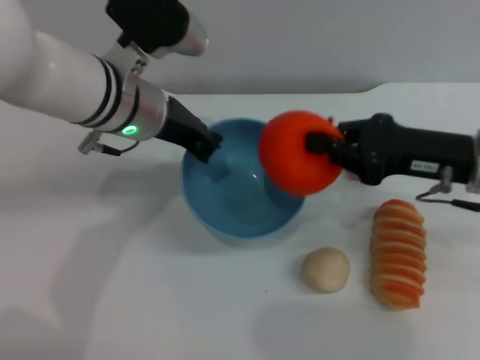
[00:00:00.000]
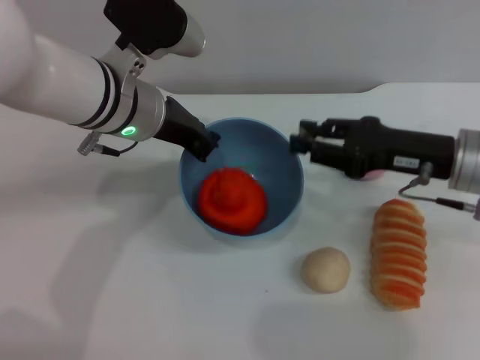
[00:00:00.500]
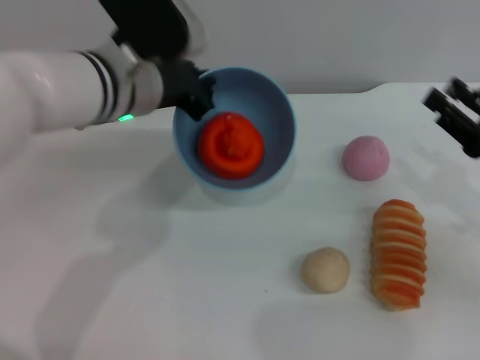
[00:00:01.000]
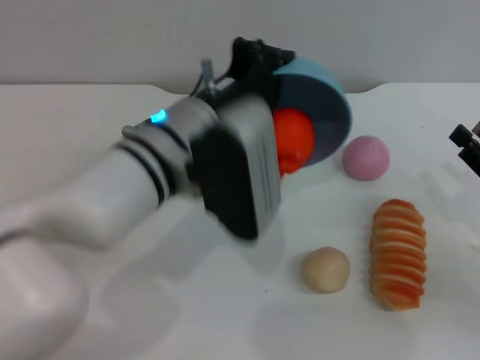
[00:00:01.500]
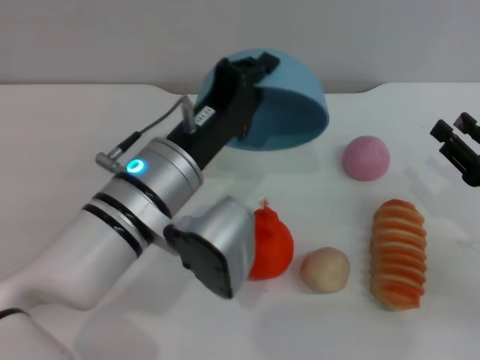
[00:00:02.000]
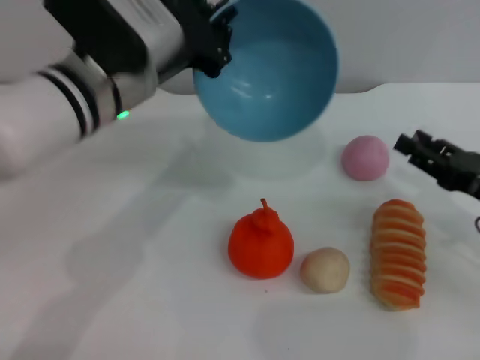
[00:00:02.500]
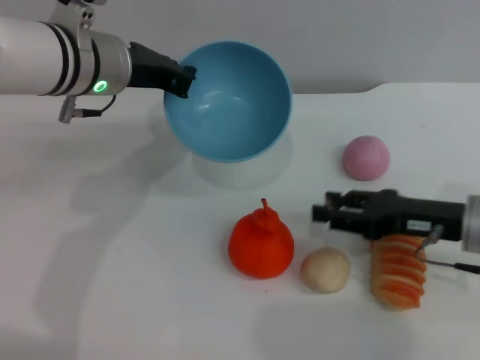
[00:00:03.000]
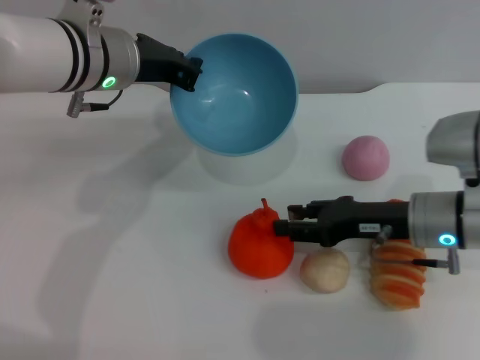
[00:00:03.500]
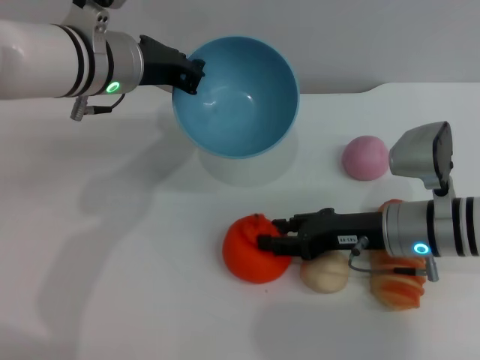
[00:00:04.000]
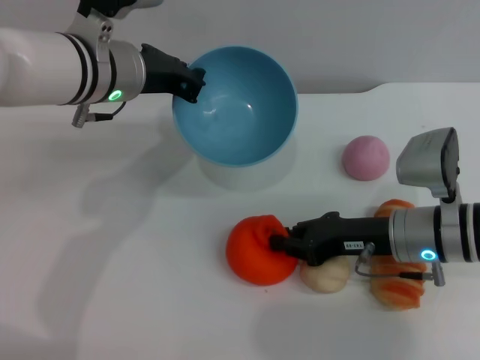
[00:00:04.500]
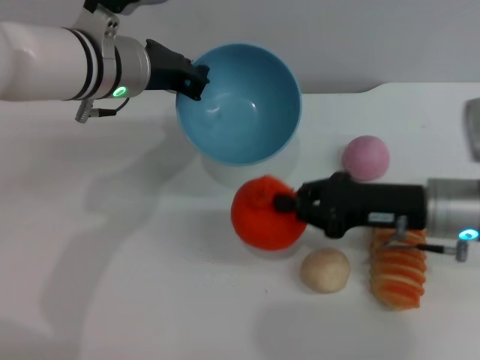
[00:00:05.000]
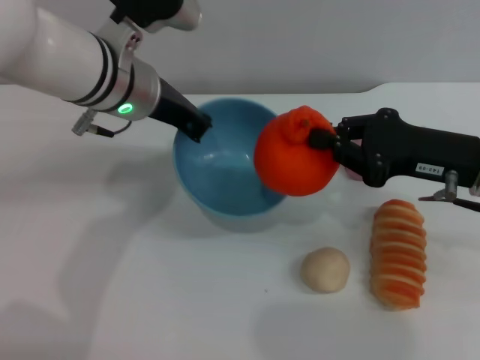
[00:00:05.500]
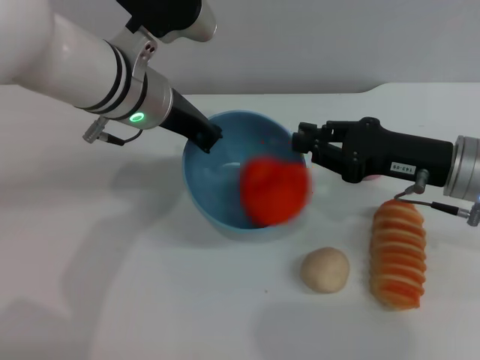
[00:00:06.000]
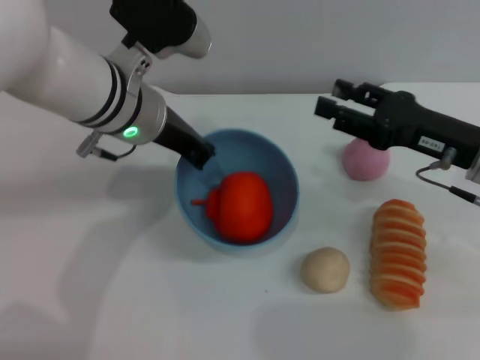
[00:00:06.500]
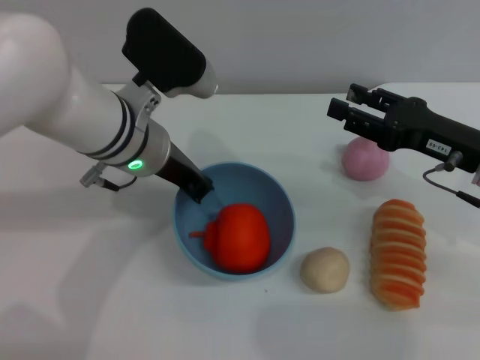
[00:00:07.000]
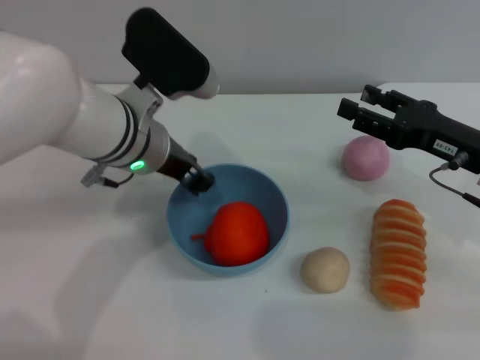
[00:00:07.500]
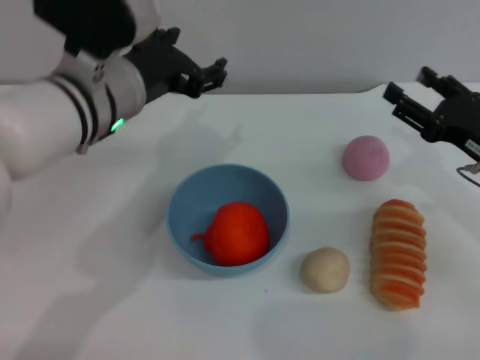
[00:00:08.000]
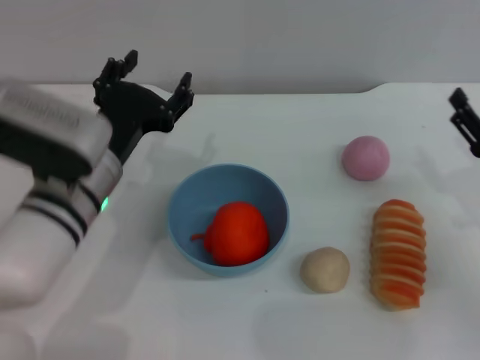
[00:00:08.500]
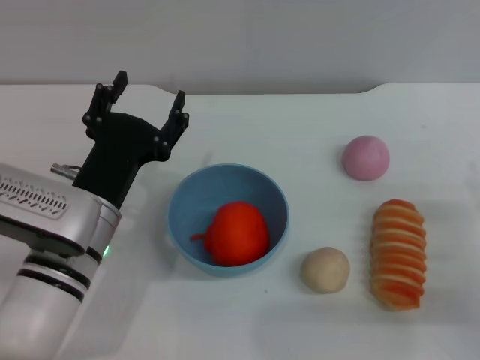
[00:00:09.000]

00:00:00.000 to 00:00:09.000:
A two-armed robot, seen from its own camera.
Task of the whole recording: put the orange into the blue bowl and pour it out repeatedly.
Step, 00:00:01.000 to 00:00:02.000: Pour the orange out of the bowl.
Step, 00:00:02.500 to 00:00:04.500: Pick up the orange with the right gripper.
Step, 00:00:05.500 to 00:00:06.000: Place the orange into the bowl.
Step, 00:00:06.500 to 00:00:07.500: Place the bowl on the table.
00:00:00.000 to 00:00:02.000: The right gripper heads to the right, downward and backward, covering approximately 15 cm, and opens. Meanwhile the left gripper is displaced backward by roughly 10 cm.
00:00:02.000 to 00:00:04.500: The right gripper is displaced to the left and forward by approximately 15 cm, while the left gripper heads forward and upward, covering about 15 cm.
00:00:04.500 to 00:00:07.000: The left gripper changes place by some 5 cm, while the right gripper shifts some 10 cm to the right and upward, and opens.
00:00:07.000 to 00:00:09.000: The right gripper travels backward, downward and to the right by some 15 cm, while the left gripper is displaced backward and downward by roughly 15 cm, and opens.
